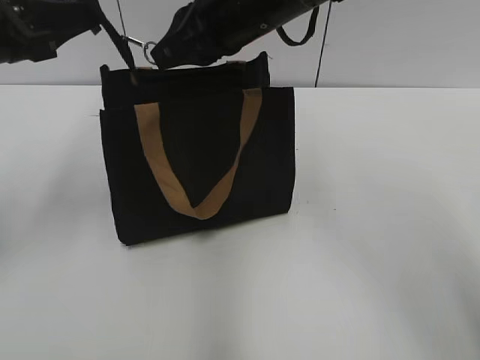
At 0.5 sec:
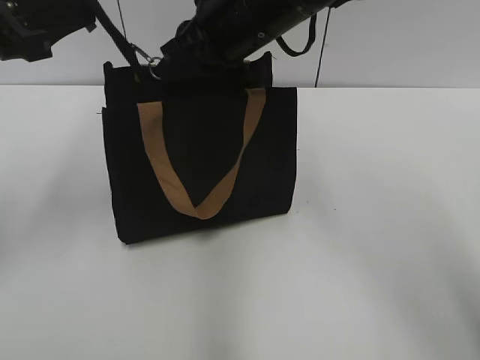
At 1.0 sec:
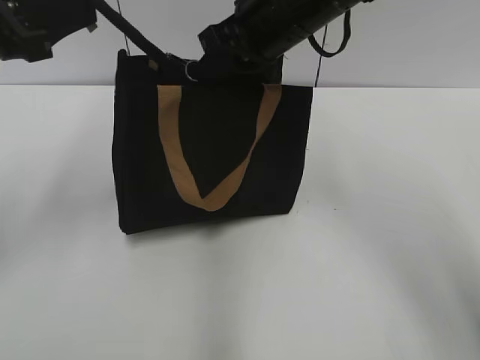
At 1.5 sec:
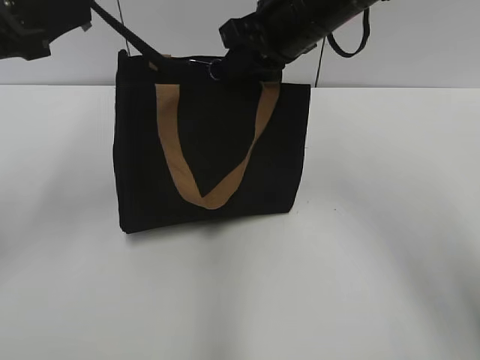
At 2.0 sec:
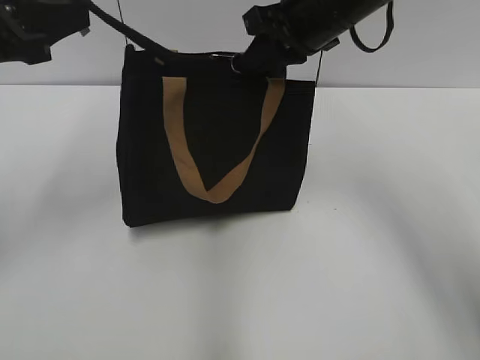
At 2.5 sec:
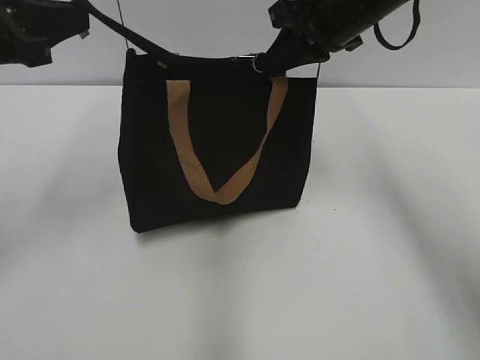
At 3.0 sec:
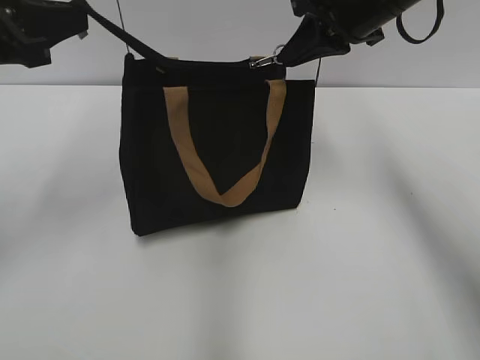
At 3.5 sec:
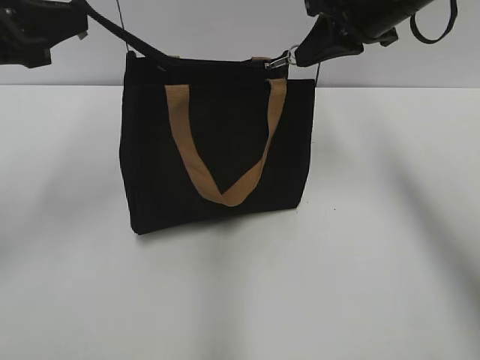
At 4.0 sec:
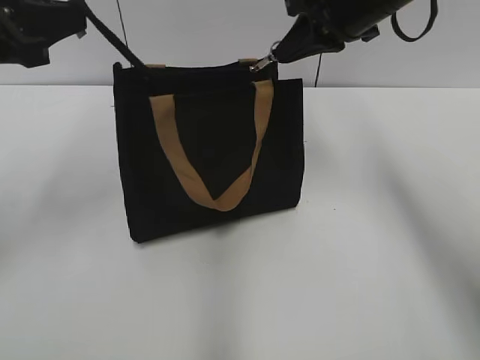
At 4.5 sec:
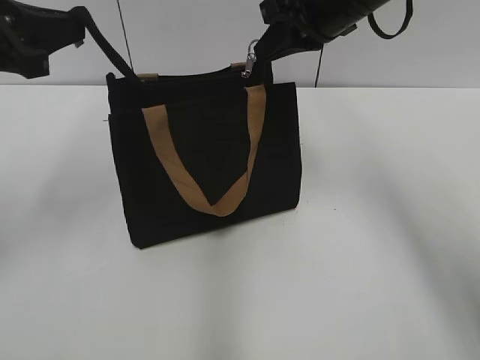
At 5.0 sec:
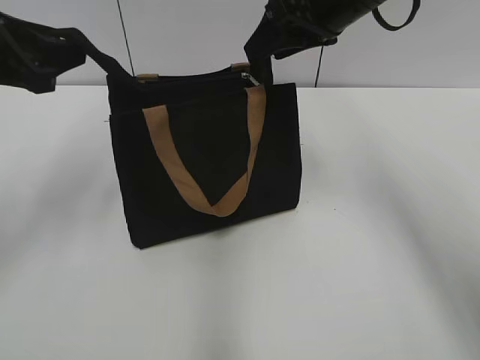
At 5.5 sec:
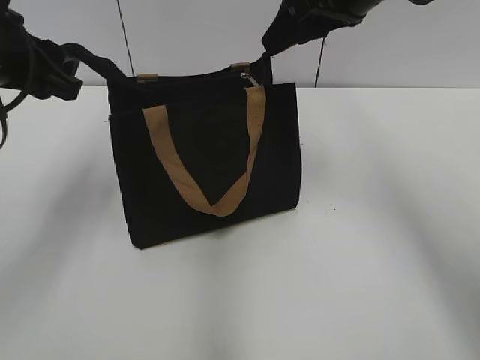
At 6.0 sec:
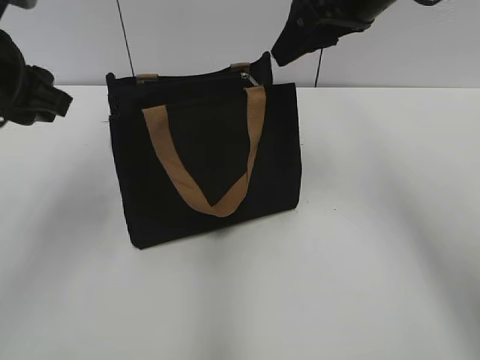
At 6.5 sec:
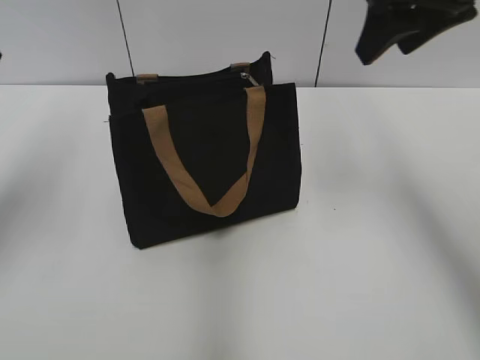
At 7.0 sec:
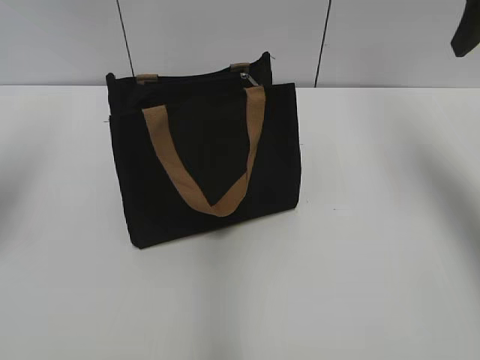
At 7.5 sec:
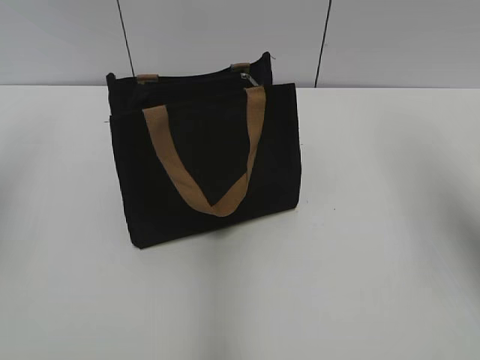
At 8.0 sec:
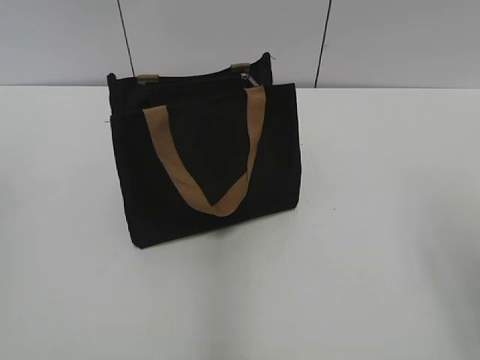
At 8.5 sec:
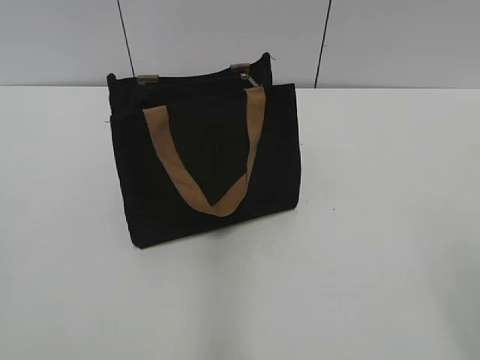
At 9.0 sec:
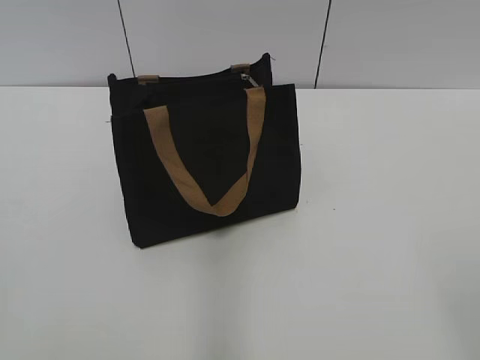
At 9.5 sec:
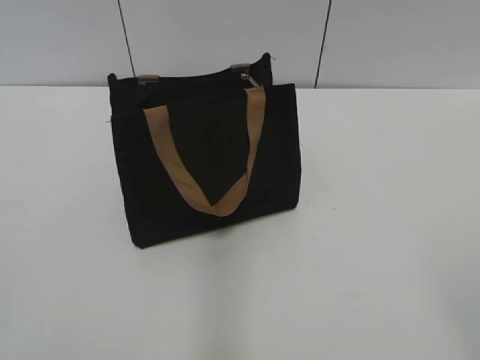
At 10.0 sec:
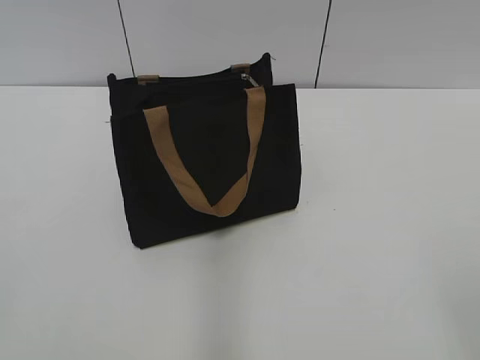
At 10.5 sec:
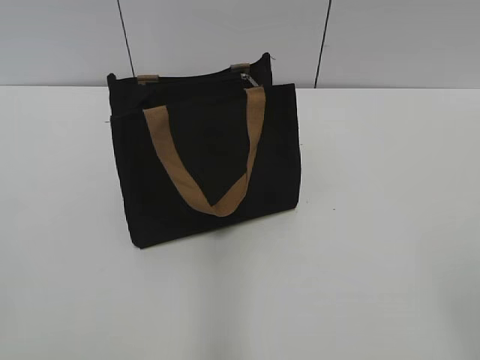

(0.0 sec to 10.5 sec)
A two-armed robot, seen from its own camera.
Step, 0.0 sec - 4.5 sec: Zip up the bag with your right hand.
Step, 5.0 sec - 6.0 sec: Grab the zipper with your left hand.
0.0 sec - 2.0 sec: The right gripper shifts some 10 cm to the right.
2.0 sec - 4.0 sec: The right gripper moves to the right, roughly 5 cm.
4.0 sec - 6.5 sec: The left gripper opens up; the right gripper shifts roughly 10 cm backward and upward, and opens.
6.5 sec - 8.5 sec: The two grippers go about 30 cm backward.
